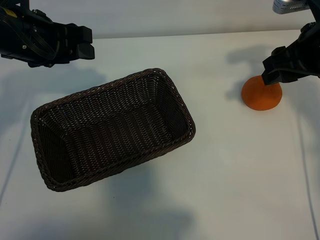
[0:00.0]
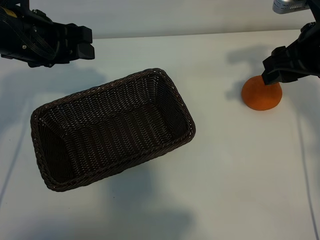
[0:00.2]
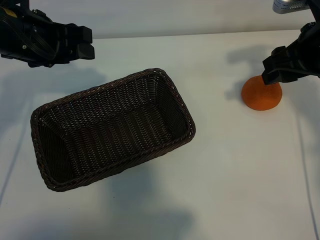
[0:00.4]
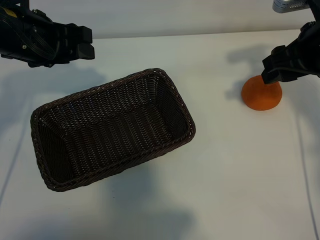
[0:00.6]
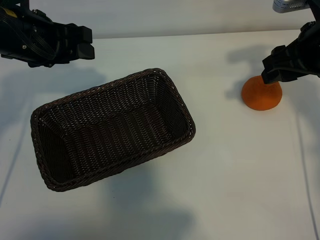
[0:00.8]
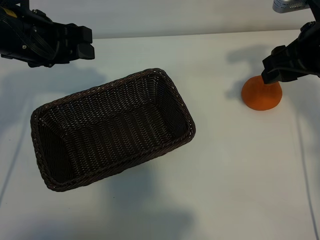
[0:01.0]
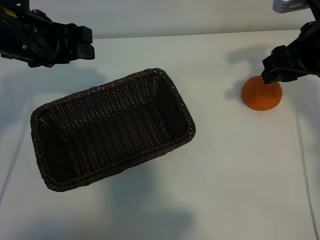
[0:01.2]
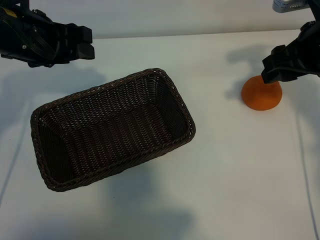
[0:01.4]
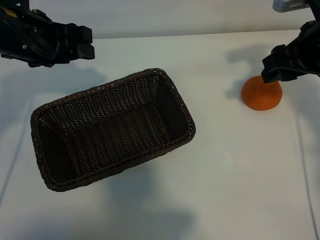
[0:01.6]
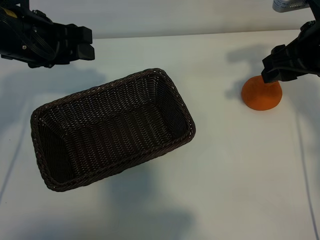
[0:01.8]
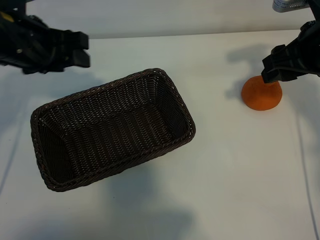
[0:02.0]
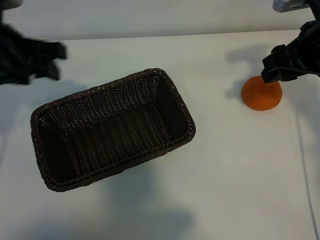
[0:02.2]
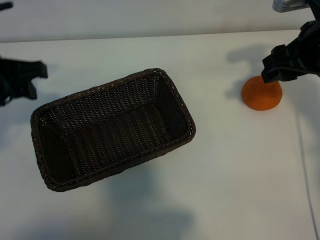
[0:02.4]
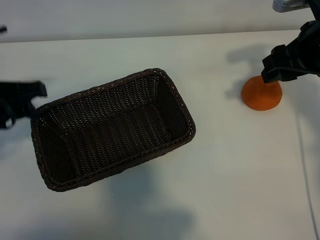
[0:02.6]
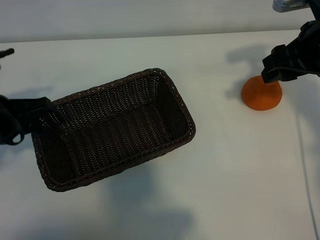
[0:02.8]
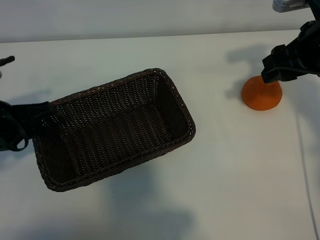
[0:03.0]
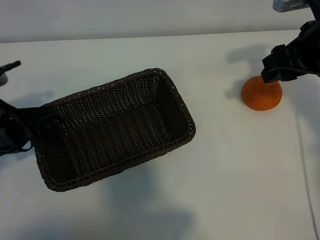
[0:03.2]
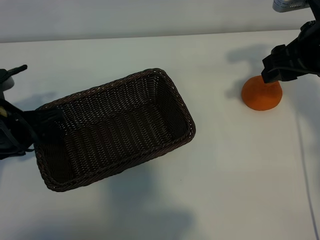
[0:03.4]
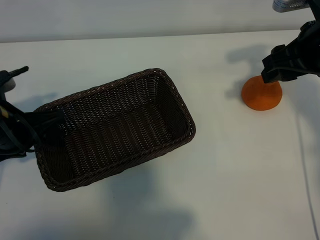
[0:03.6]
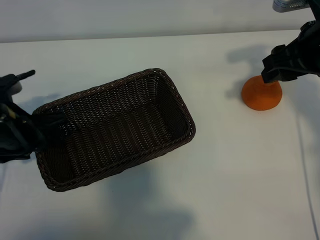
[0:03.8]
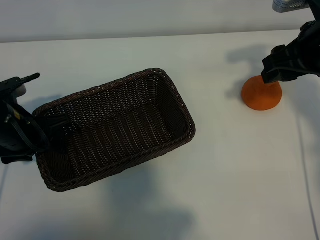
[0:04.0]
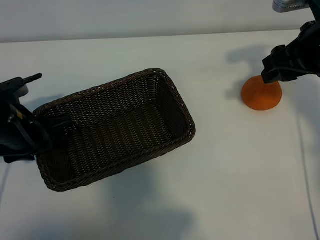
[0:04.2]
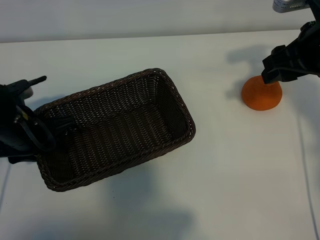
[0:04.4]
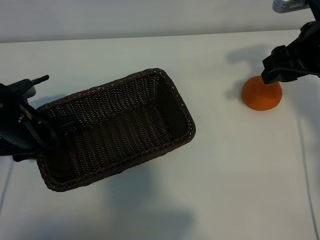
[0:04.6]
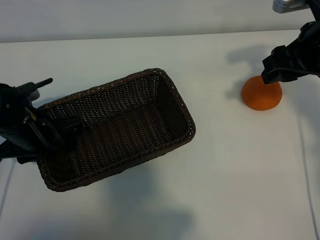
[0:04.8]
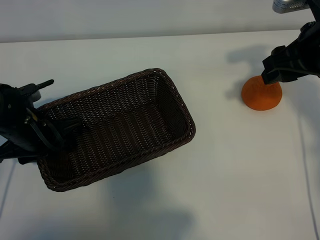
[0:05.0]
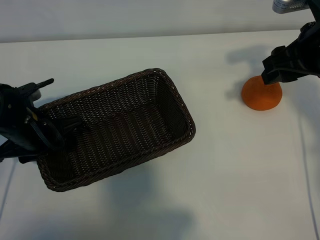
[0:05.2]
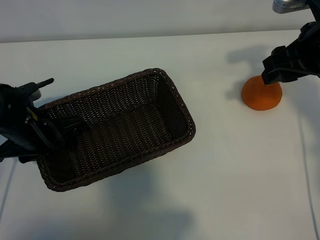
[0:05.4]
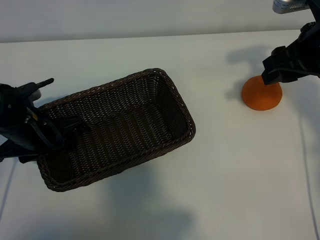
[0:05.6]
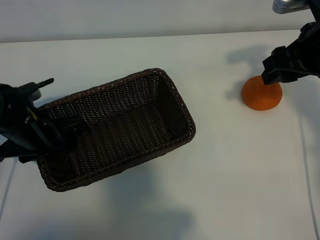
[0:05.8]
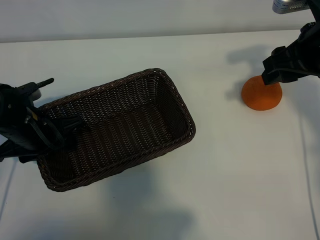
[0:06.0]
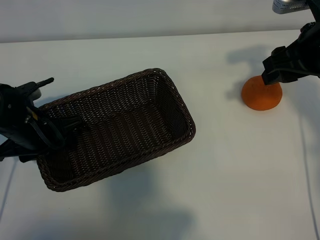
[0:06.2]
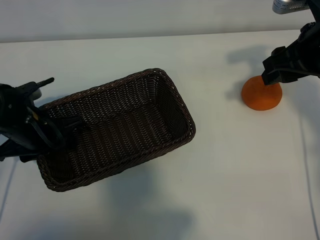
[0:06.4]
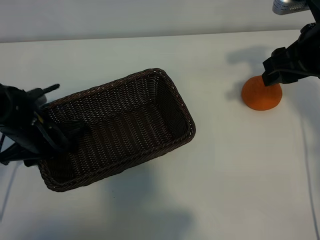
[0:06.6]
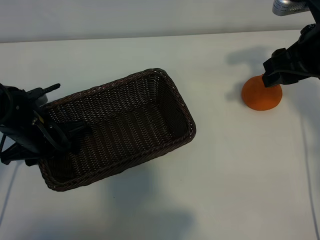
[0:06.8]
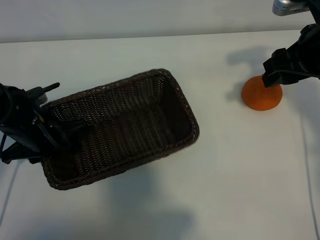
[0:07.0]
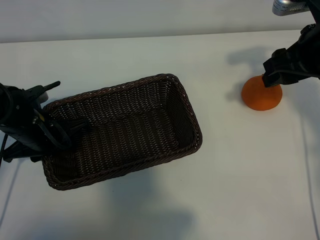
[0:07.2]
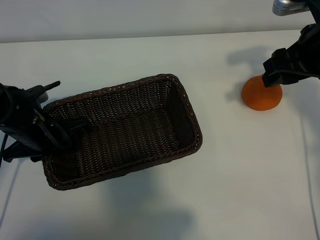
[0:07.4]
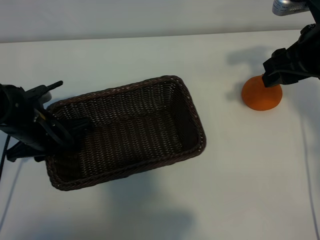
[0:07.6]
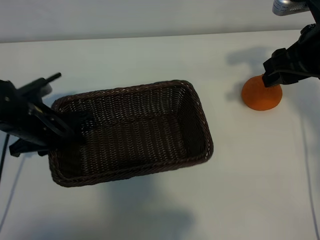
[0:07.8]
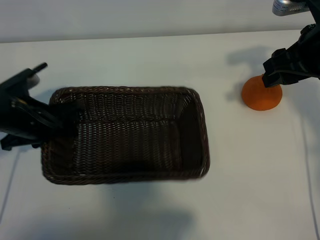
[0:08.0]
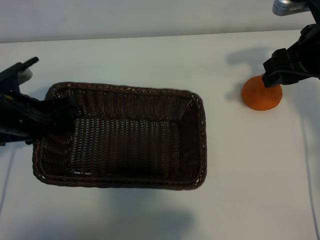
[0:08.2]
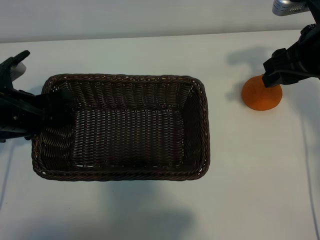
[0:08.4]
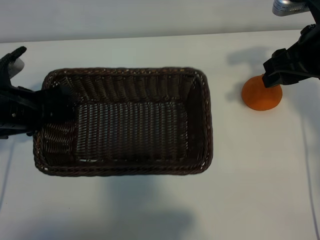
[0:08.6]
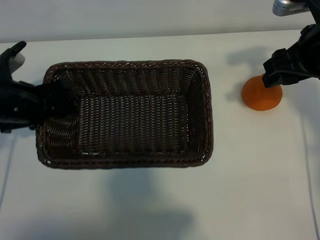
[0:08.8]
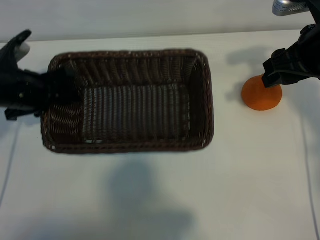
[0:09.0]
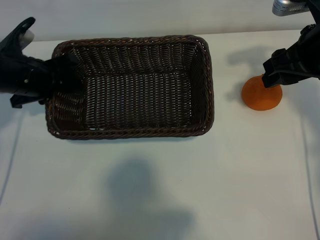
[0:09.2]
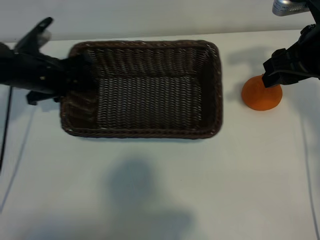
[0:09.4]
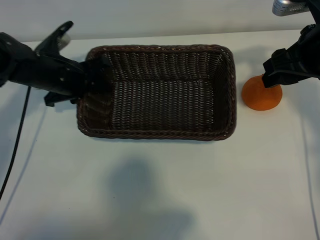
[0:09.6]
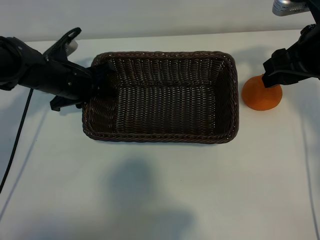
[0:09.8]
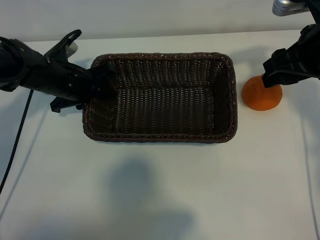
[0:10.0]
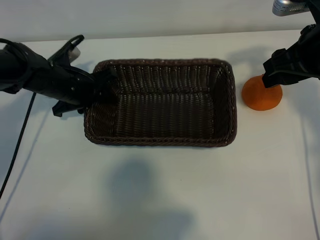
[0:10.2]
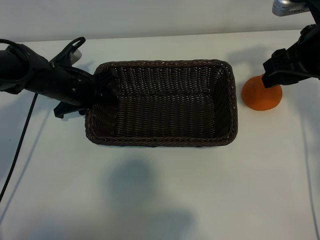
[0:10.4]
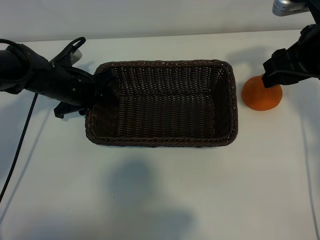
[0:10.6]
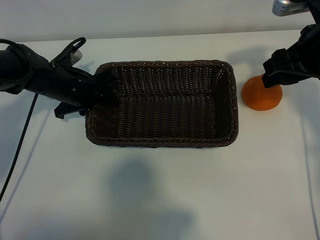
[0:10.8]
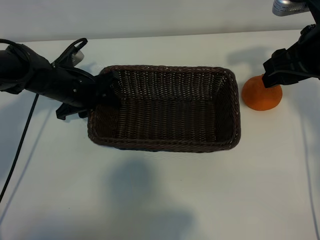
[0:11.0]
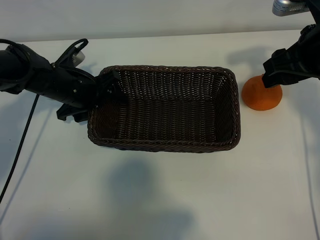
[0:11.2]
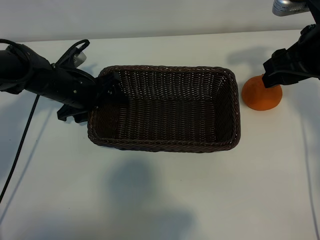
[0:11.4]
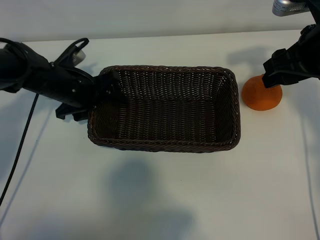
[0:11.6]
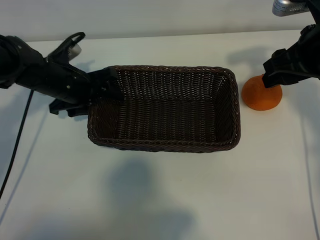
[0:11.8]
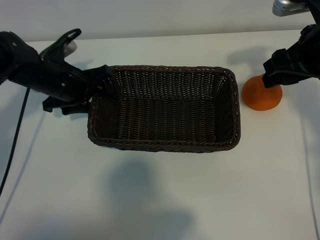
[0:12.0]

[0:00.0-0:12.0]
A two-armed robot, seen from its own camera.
Task of the whole recording: pick up the orange and put it into the basket.
Step, 0:01.8 to 0:07.2: Grasp the basket with left gripper.
Step, 0:07.6 to 0:11.0: Place the basket in the center of view with left gripper.

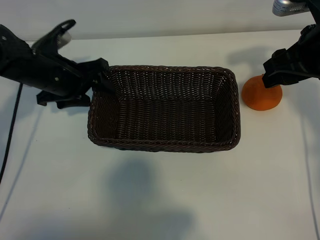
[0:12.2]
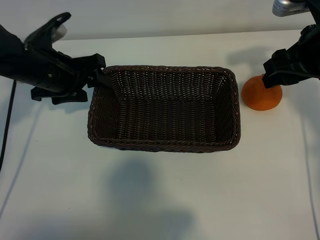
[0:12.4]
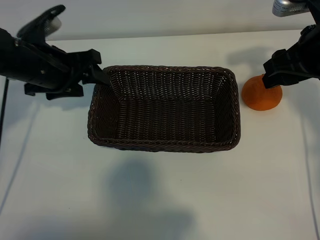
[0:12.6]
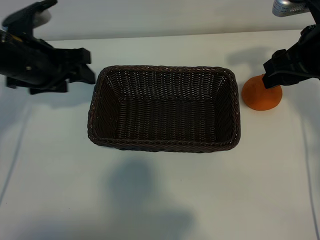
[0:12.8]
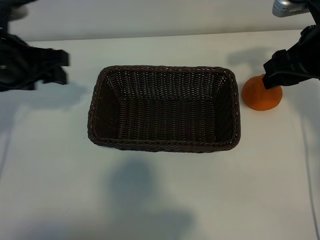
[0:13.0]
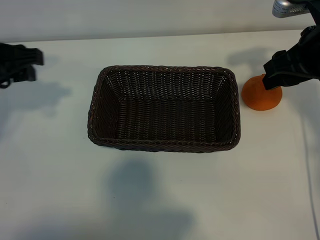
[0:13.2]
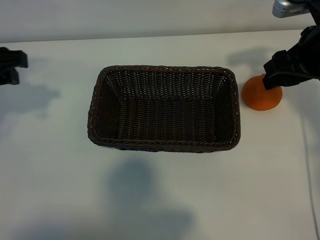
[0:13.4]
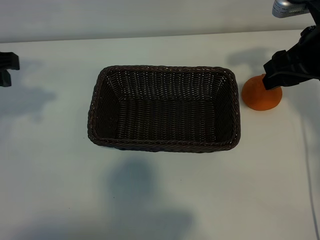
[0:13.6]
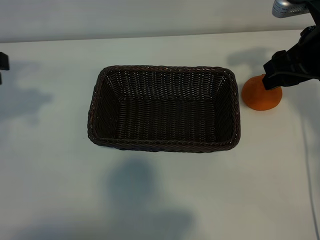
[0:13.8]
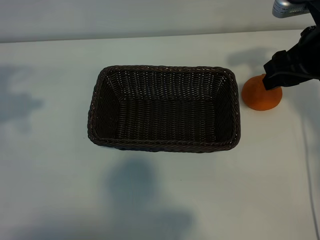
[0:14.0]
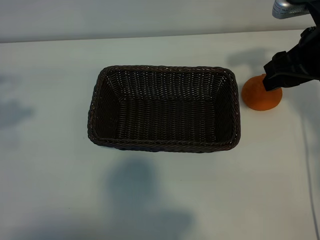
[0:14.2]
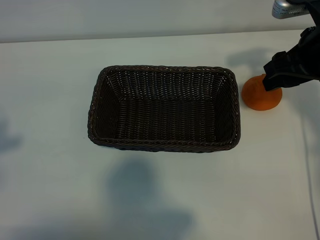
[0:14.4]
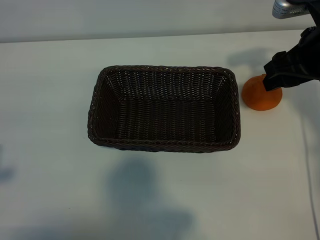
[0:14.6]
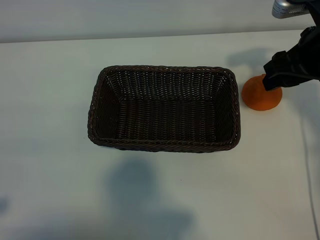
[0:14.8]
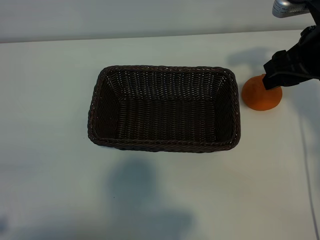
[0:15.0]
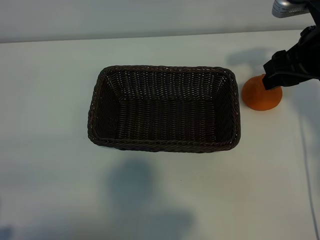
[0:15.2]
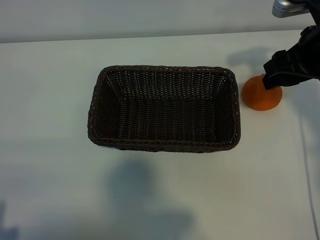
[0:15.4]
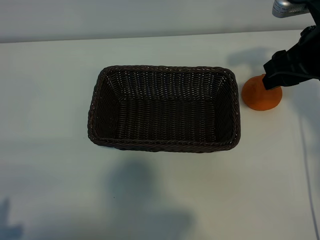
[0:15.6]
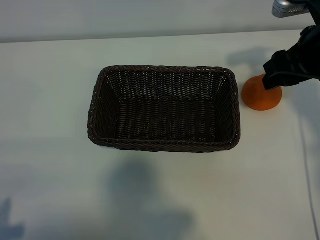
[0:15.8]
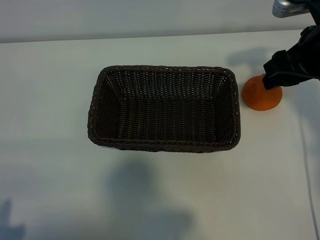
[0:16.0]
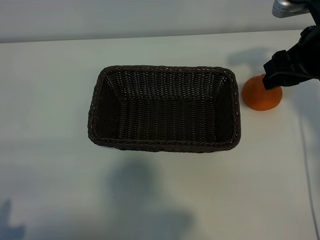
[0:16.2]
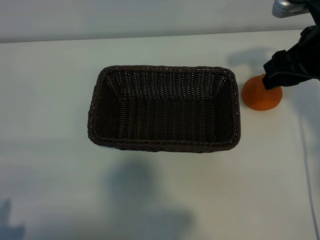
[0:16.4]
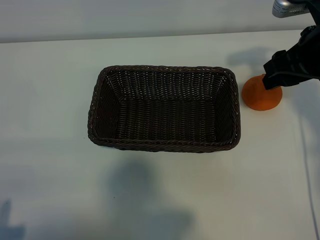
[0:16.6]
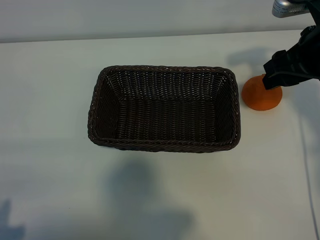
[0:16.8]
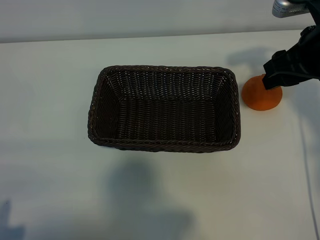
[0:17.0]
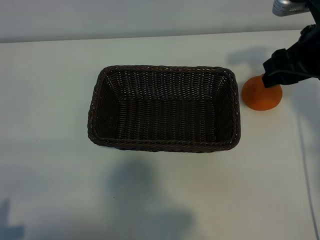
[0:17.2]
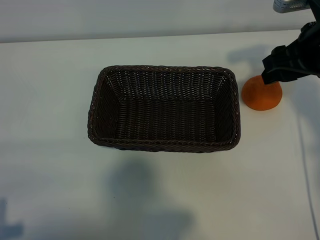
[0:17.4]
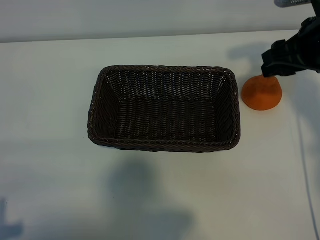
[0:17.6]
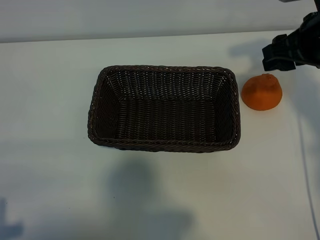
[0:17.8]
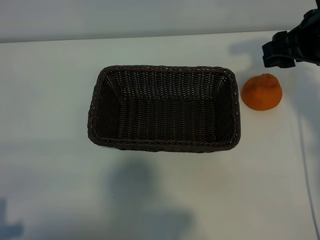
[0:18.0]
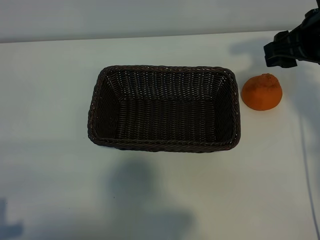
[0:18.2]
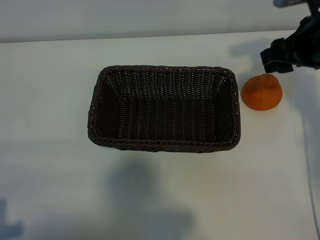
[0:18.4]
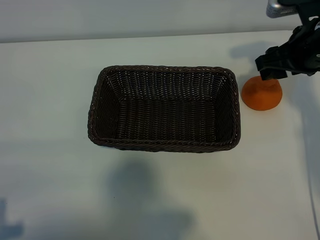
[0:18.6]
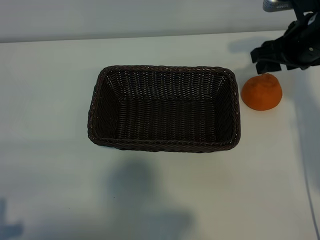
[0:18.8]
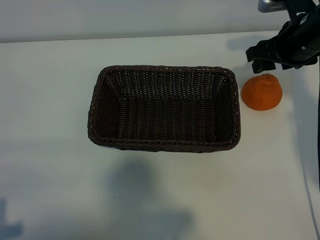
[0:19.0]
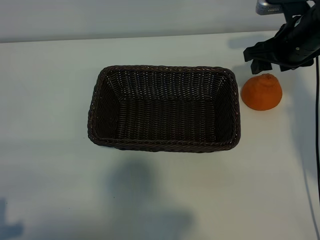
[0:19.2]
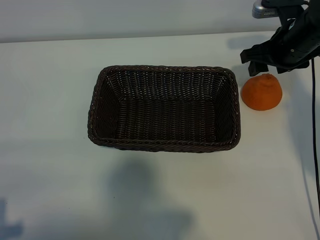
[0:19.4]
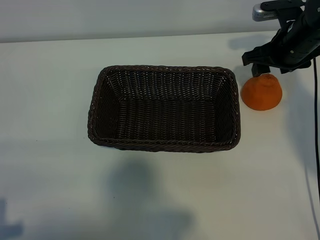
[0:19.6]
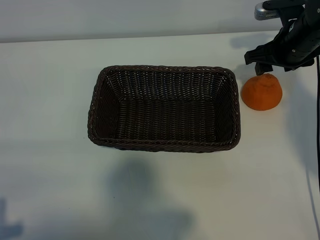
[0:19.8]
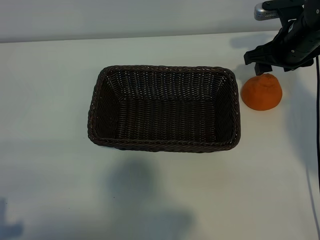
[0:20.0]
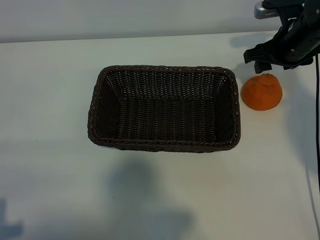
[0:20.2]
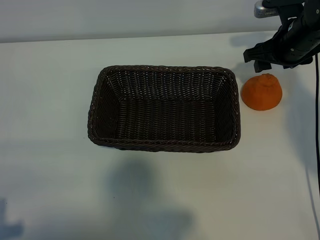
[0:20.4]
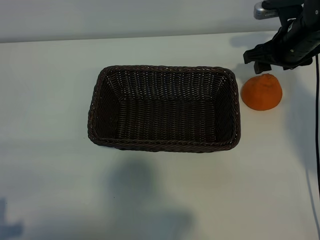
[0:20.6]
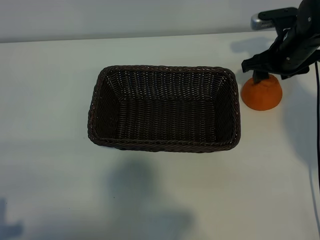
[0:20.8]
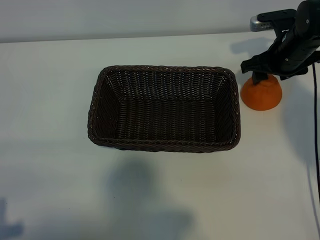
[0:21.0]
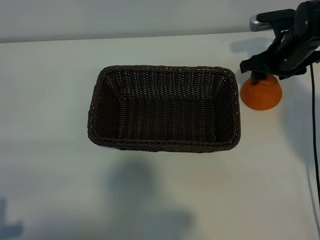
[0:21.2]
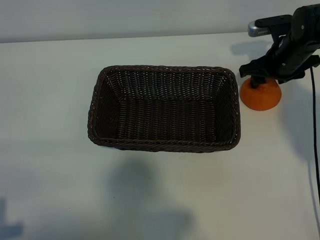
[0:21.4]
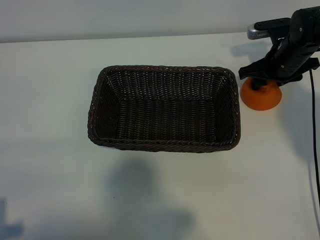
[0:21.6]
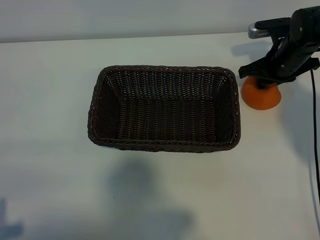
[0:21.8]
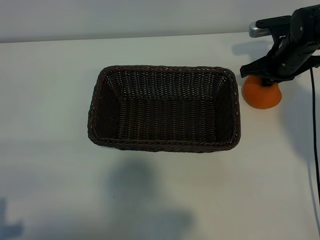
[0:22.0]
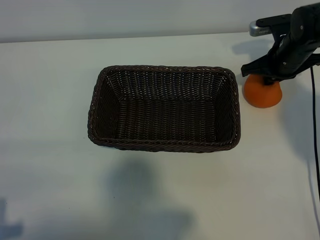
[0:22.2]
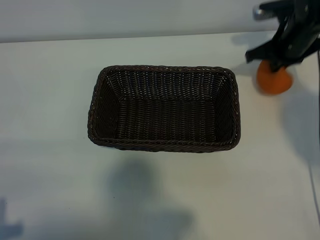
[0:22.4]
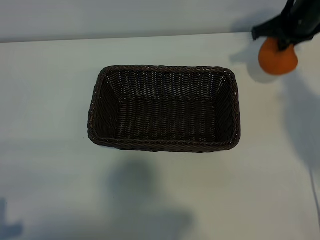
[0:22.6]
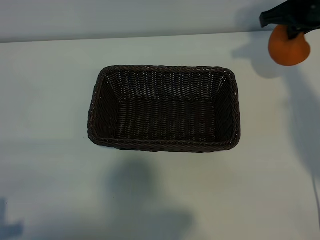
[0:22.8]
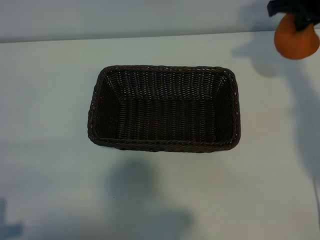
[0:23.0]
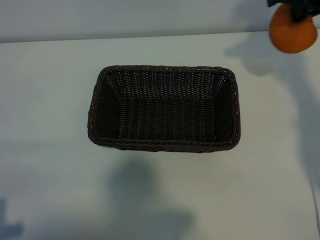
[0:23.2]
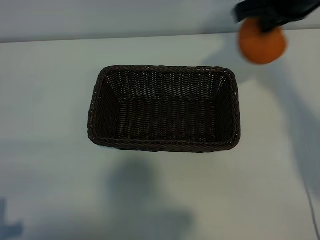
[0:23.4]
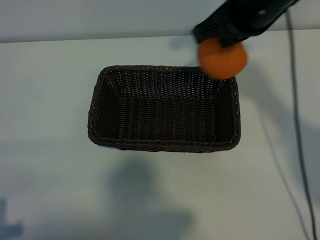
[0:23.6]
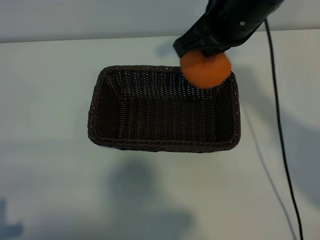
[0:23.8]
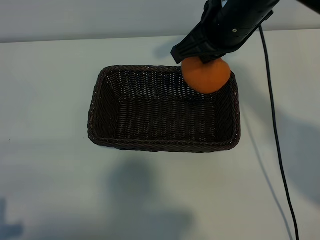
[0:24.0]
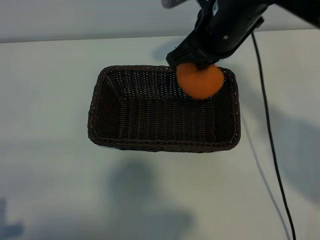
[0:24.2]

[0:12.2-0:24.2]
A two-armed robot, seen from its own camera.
Task of the whole recording: pick up the orange and put it into the basket.
Step, 0:12.2 to 0:22.0: Grasp the orange with right gripper.
